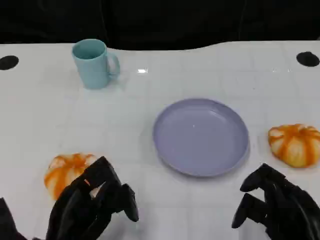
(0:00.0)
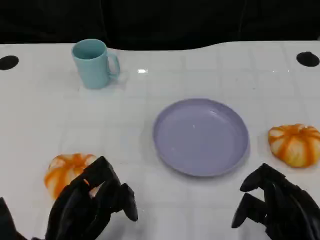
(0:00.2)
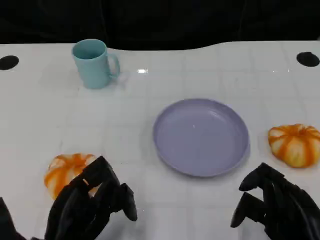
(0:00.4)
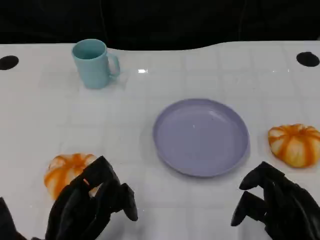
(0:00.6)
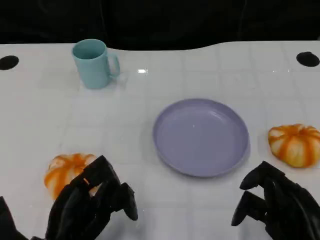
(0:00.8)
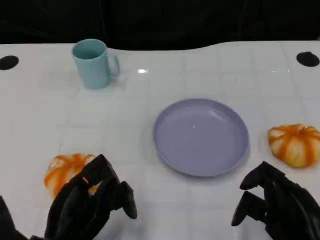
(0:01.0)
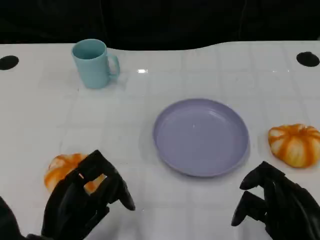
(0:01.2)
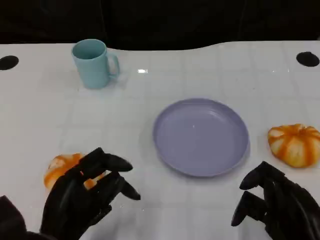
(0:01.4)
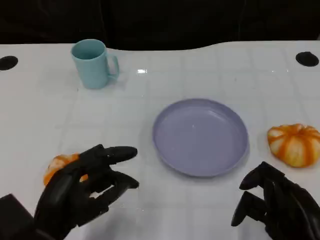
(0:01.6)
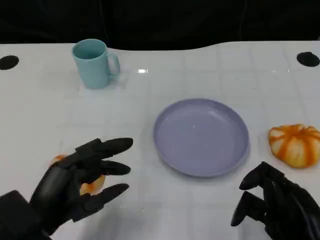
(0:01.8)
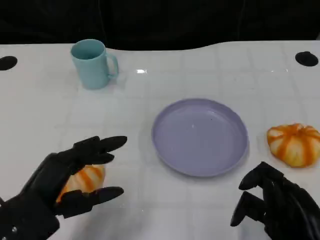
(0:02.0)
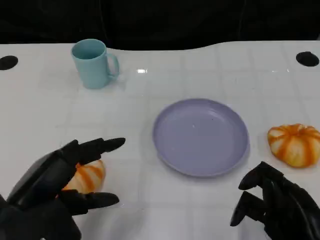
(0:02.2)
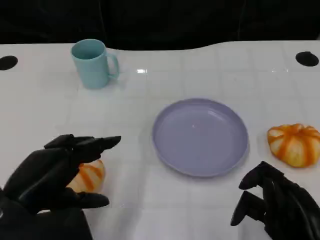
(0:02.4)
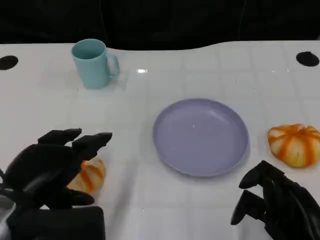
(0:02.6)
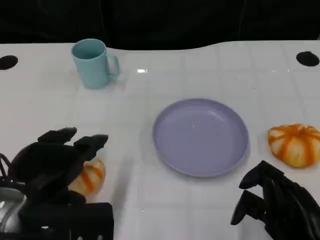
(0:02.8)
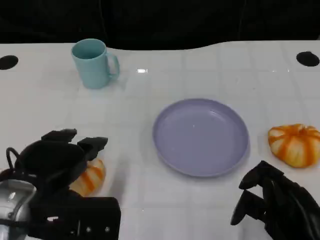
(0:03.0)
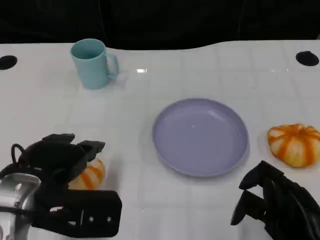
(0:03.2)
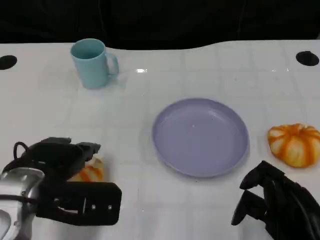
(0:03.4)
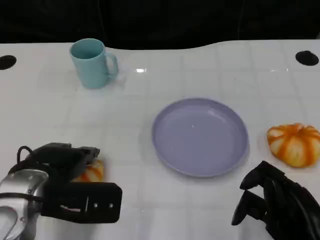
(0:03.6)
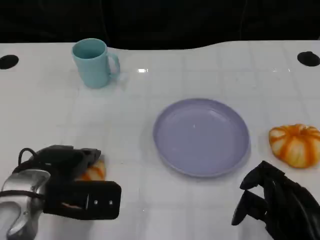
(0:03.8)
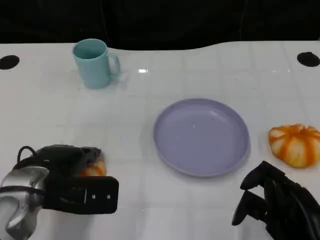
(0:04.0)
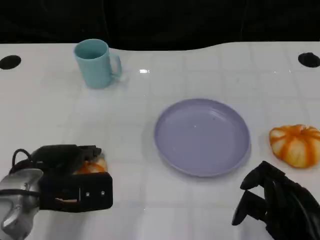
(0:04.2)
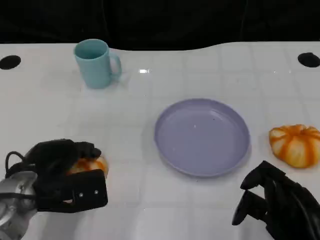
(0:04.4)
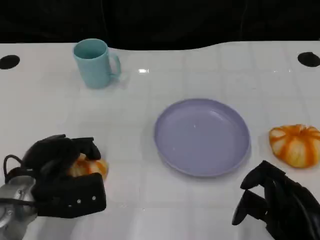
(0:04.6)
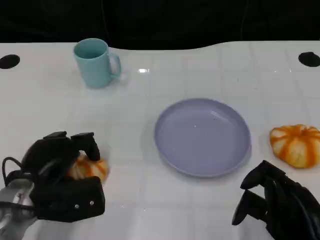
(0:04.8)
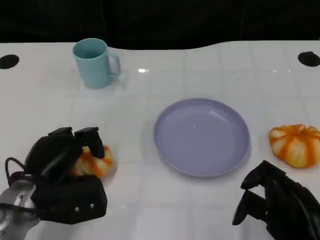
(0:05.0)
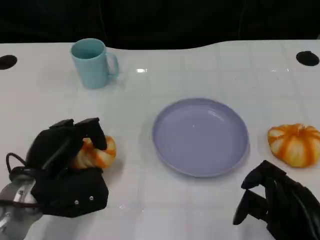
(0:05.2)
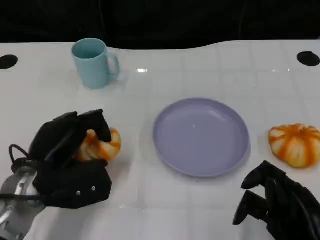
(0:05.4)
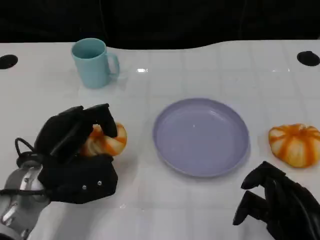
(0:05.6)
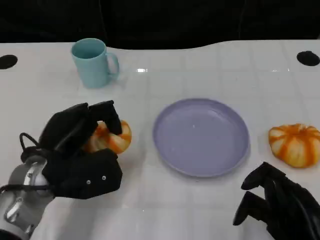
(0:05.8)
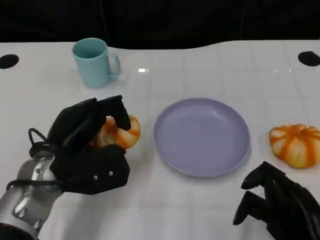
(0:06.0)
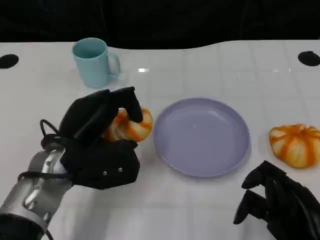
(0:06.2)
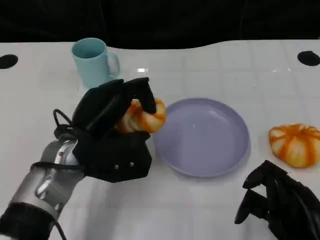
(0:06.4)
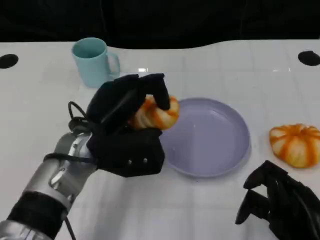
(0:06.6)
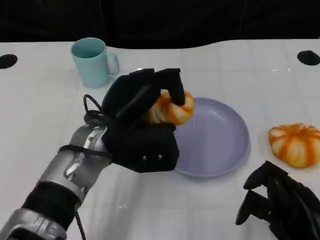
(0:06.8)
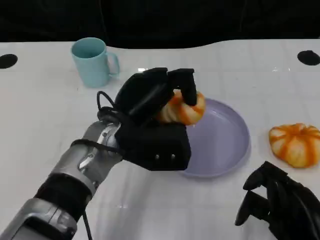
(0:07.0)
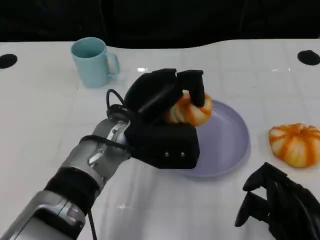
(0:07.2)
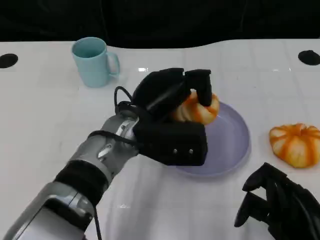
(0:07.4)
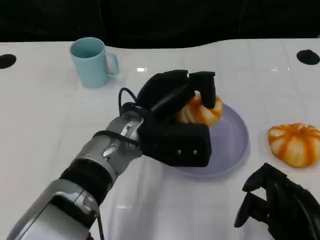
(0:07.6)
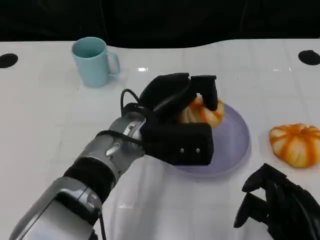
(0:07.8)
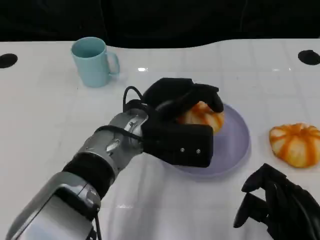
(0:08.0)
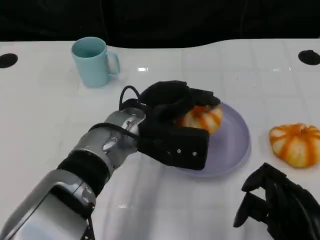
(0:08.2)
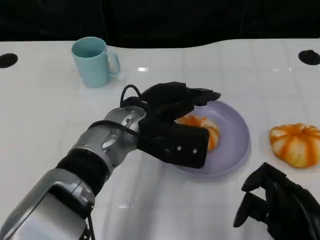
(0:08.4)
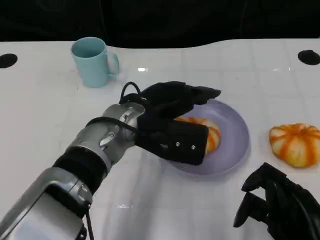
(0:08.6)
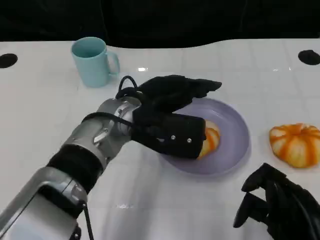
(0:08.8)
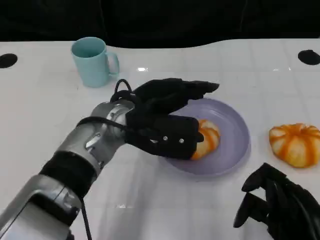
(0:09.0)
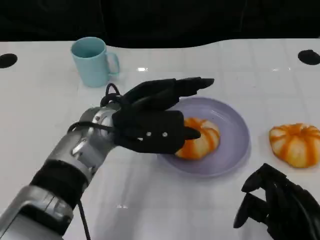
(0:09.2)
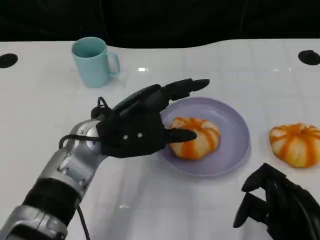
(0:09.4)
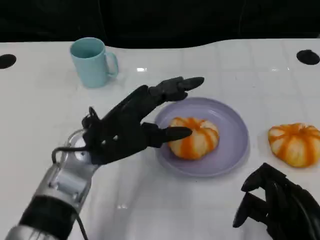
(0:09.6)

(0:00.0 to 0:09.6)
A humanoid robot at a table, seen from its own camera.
Task of the whole recording: Grasp the bread from the table and place it into the plate.
0:01.6 - 0:03.2: The left hand is displaced upward and forward by about 10 cm.
0:03.2 - 0:04.8: The left hand travels downward by some 10 cm.
0:04.8 - 0:06.4: The left hand is displaced to the right and upward by roughly 10 cm.
0:06.4 - 0:08.0: The left hand is displaced to the right by roughly 10 cm.
0:08.0 - 0:09.6: The left hand heads to the left, covering some 5 cm.

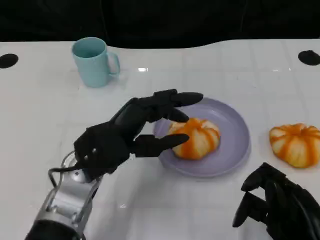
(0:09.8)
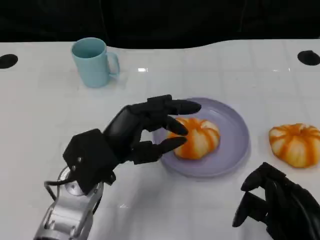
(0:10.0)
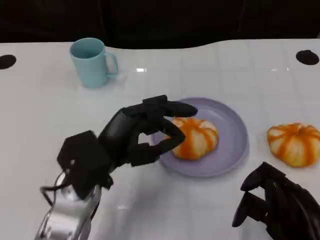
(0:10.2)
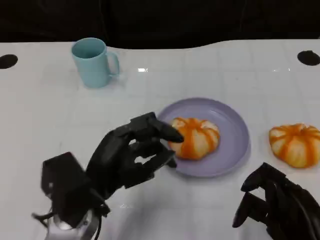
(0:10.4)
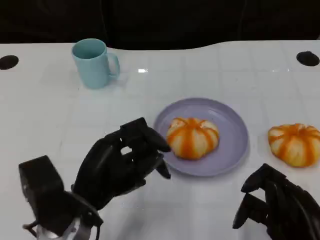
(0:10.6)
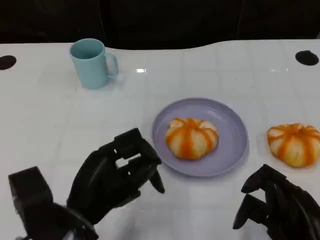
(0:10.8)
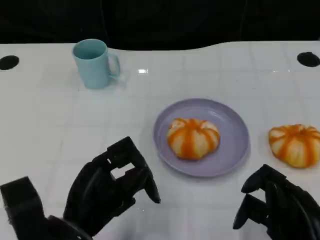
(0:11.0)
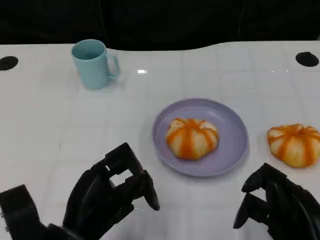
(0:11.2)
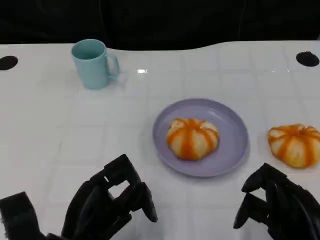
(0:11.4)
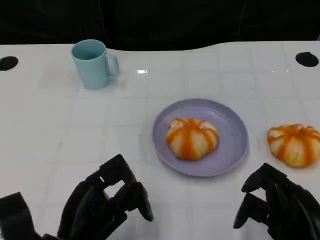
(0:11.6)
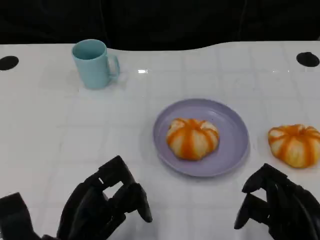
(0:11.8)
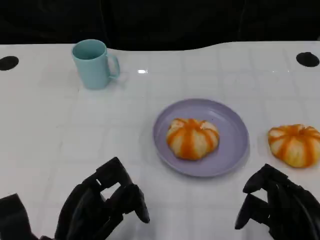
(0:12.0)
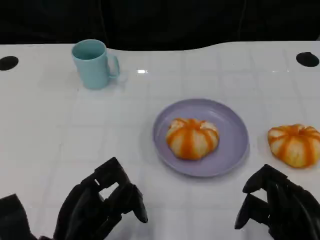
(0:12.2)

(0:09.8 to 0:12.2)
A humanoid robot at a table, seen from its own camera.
Task of the whole recording: Grasp the bread from the table and place it into the plate.
0:09.8 - 0:11.0: The left hand moves backward, approximately 10 cm.
0:11.0 - 0:12.2: The hands move only a little.

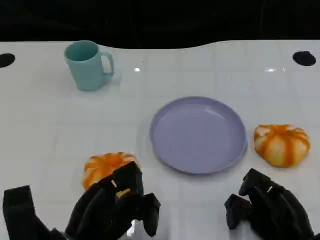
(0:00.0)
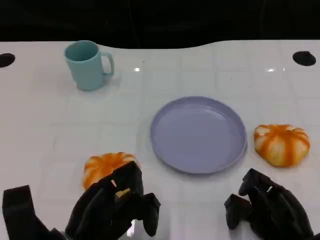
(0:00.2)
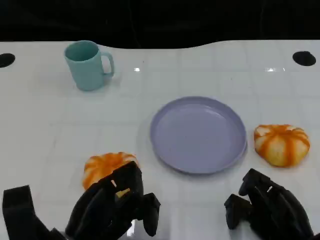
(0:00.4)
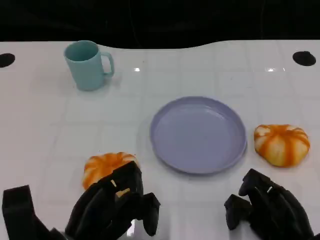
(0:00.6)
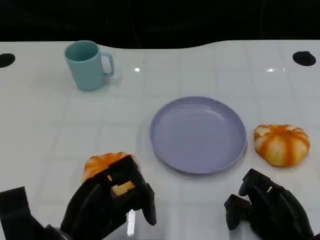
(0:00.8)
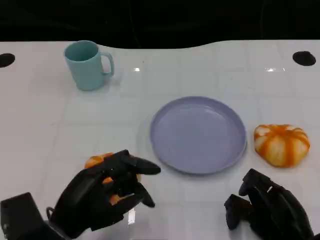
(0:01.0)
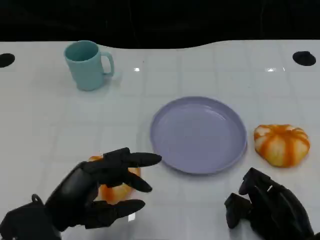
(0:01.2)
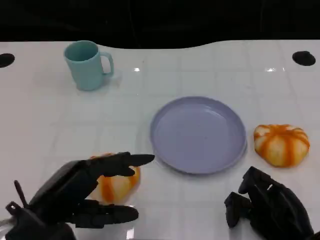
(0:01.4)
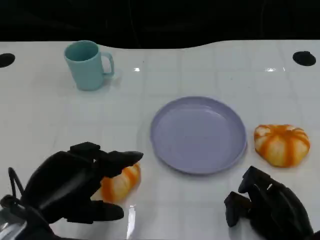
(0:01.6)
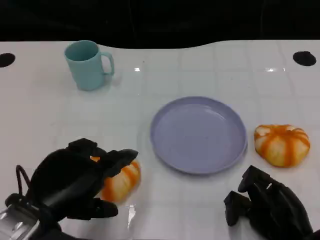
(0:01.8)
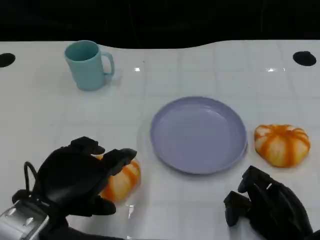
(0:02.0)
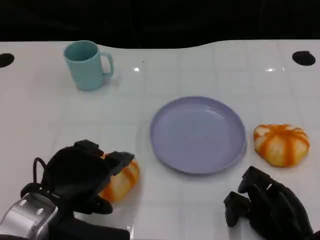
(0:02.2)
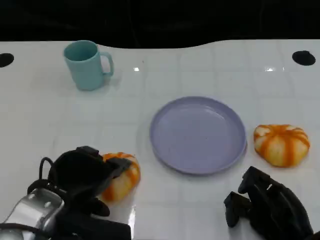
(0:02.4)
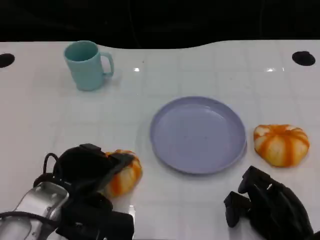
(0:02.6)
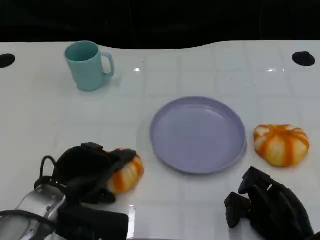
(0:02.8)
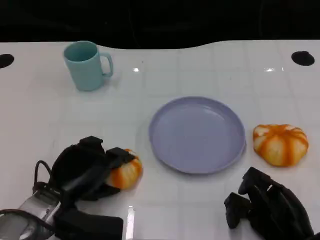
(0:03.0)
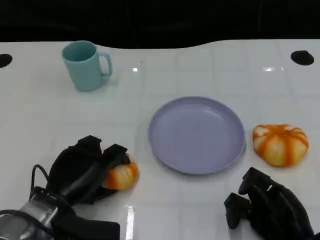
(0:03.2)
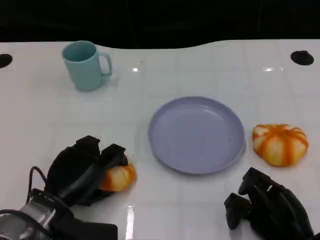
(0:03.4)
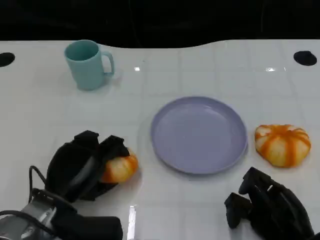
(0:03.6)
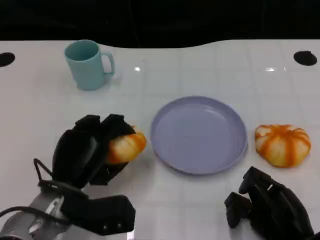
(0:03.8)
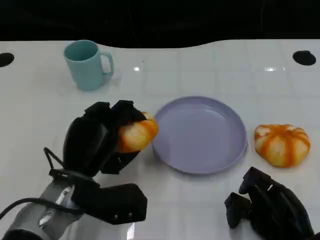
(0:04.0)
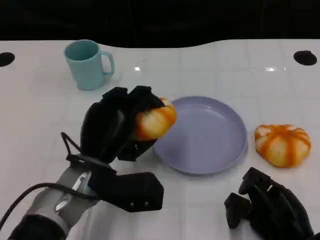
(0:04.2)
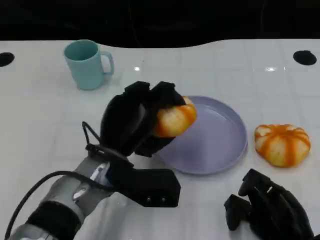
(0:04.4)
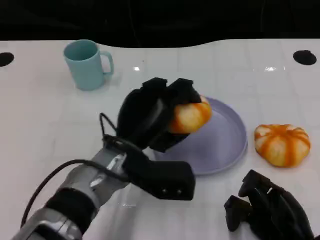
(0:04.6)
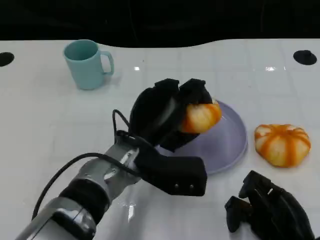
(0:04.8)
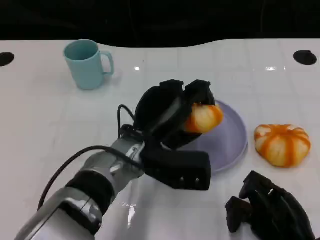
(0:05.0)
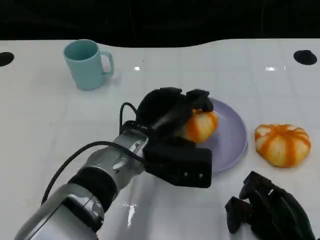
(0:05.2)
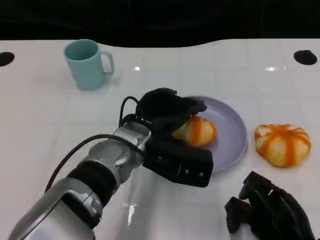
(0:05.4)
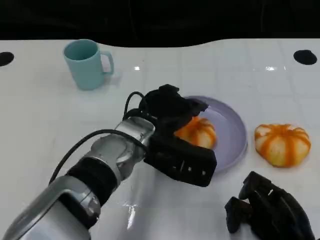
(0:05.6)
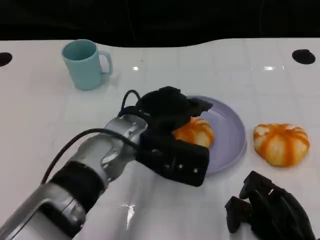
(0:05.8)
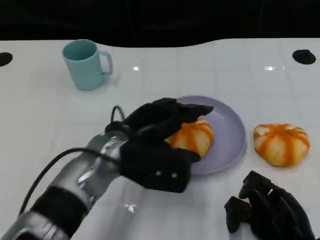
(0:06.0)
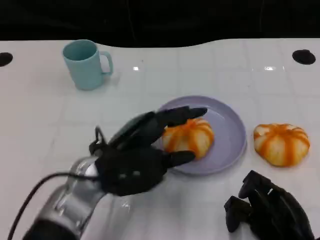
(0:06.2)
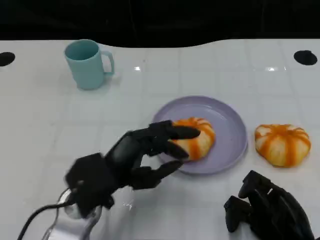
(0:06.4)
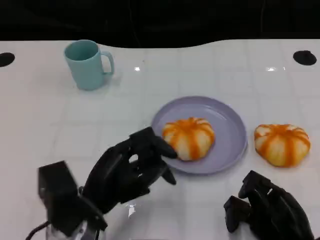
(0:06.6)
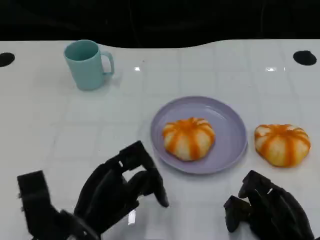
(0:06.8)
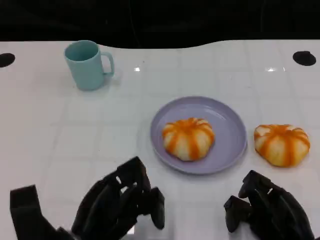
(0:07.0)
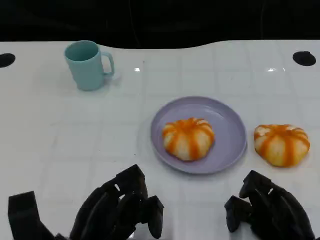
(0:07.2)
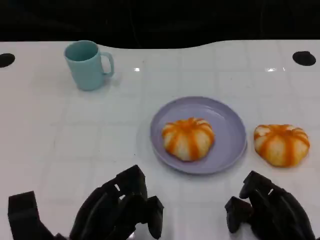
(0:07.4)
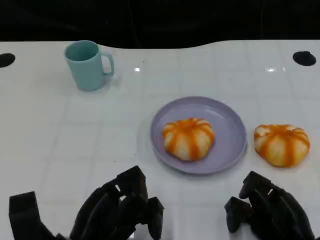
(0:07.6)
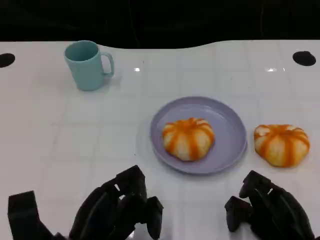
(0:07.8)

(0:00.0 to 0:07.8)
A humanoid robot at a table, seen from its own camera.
Task of the whole recording: Grasp the bread from the table and place it into the plate.
0:00.0 - 0:01.6: The left hand travels upward by about 10 cm.
0:01.6 - 0:03.2: The left hand moves downward and forward, roughly 10 cm.
0:03.2 - 0:04.6: The left hand is displaced to the right and upward by about 15 cm.
0:04.6 - 0:06.2: The left hand ends up roughly 5 cm from where it was.
0:06.2 - 0:07.8: The left hand moves backward and downward, approximately 10 cm.

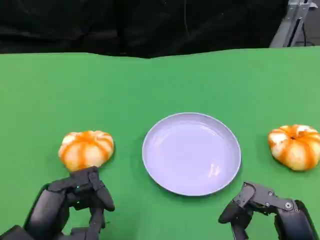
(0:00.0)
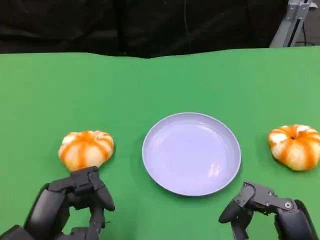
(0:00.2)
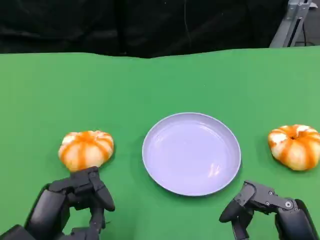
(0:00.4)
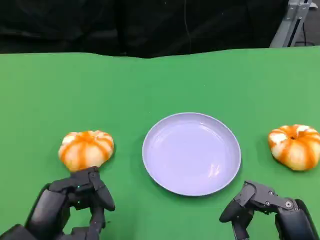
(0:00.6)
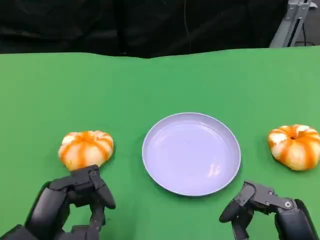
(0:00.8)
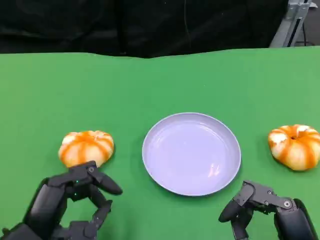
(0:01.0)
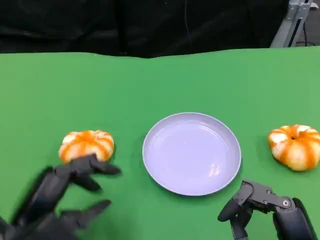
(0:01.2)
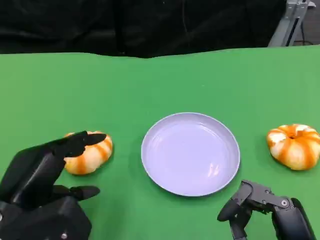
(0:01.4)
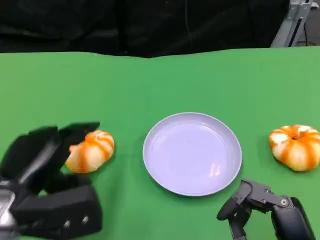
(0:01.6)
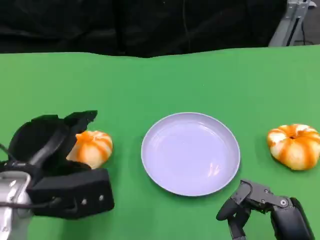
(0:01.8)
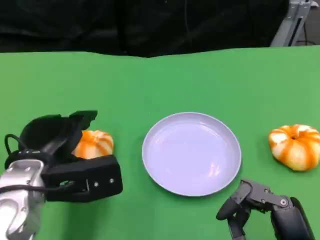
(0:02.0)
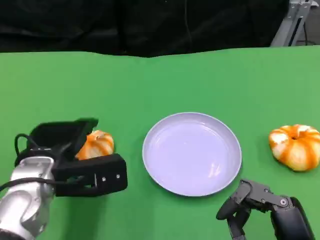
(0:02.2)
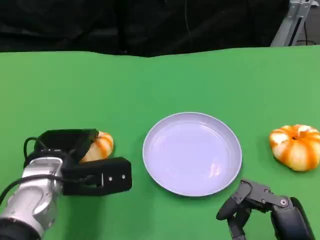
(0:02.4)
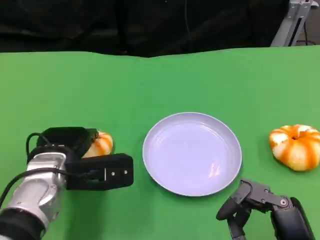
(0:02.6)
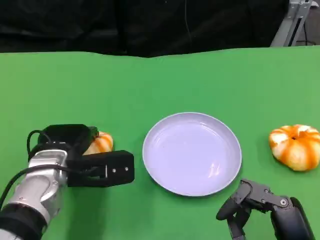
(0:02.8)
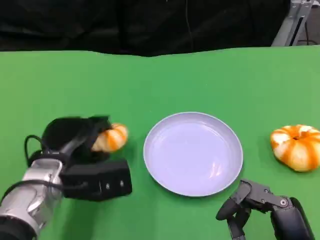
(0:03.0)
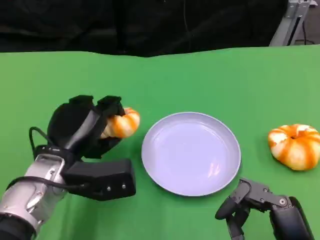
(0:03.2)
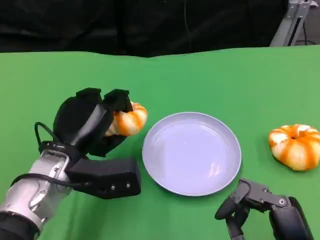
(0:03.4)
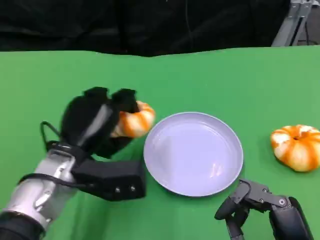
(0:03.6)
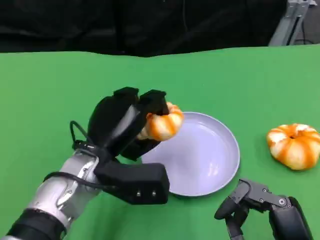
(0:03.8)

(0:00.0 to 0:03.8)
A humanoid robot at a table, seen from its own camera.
Task of the whole recording: Grasp the bread from the table and place it into the plate.
0:01.2 - 0:02.6: The left hand heads forward, covering about 10 cm.
0:02.6 - 0:03.8: The left hand heads to the right, covering about 5 cm.
